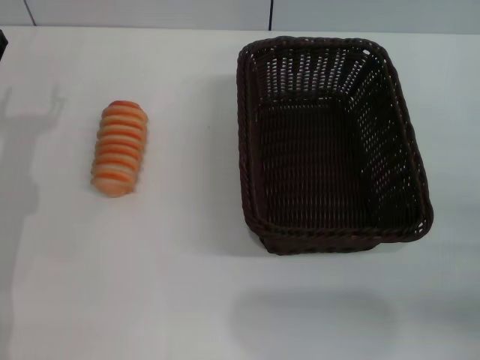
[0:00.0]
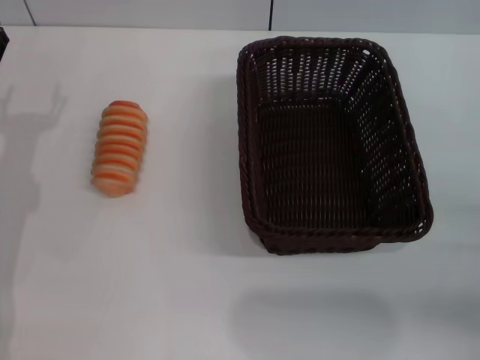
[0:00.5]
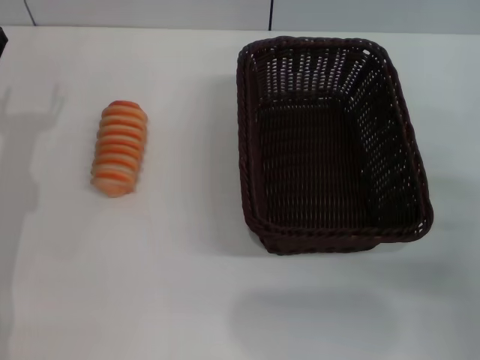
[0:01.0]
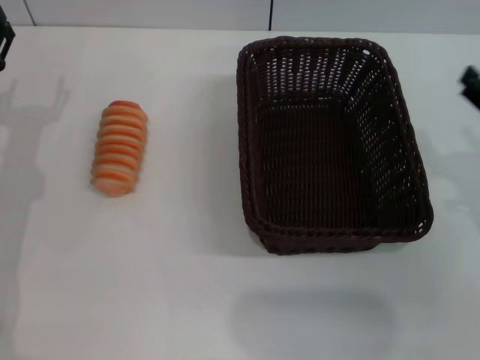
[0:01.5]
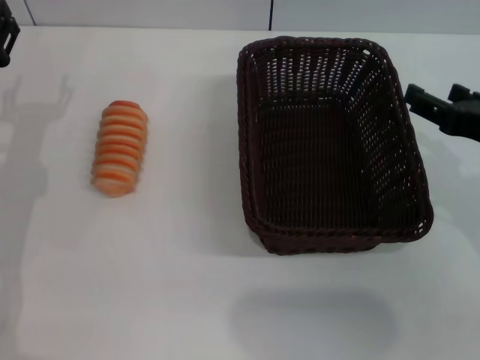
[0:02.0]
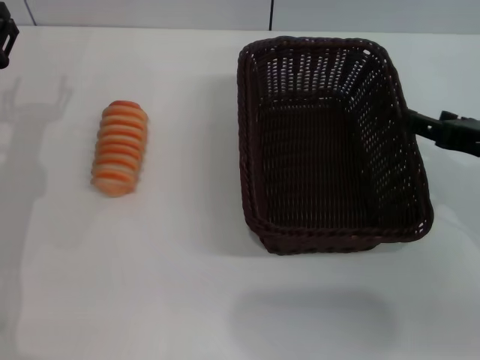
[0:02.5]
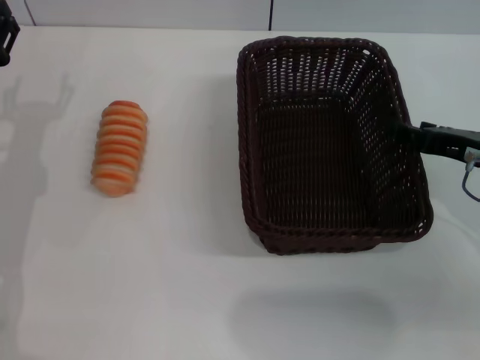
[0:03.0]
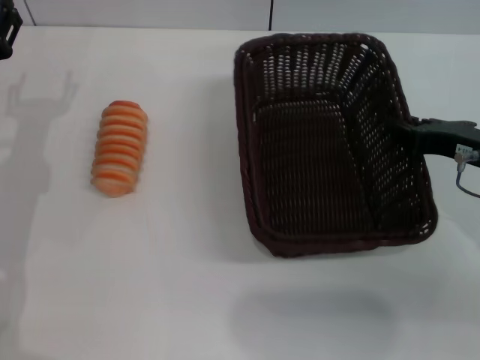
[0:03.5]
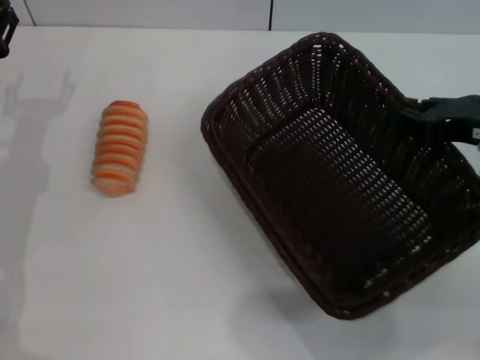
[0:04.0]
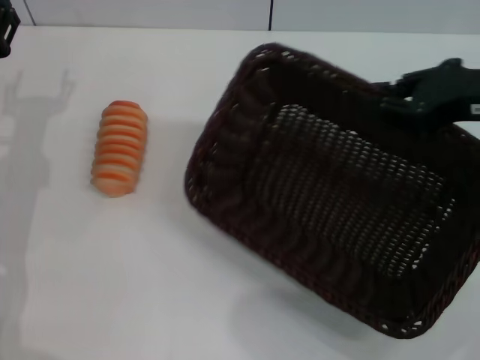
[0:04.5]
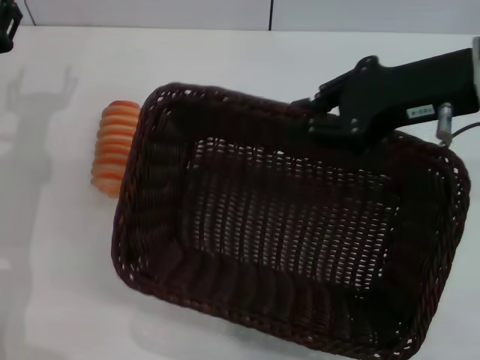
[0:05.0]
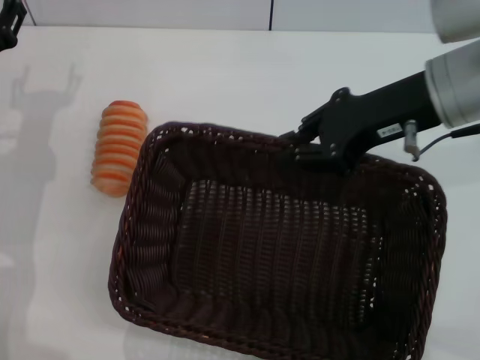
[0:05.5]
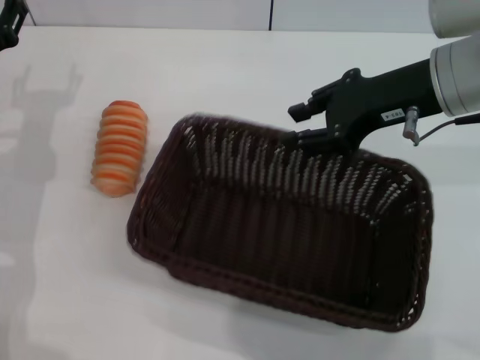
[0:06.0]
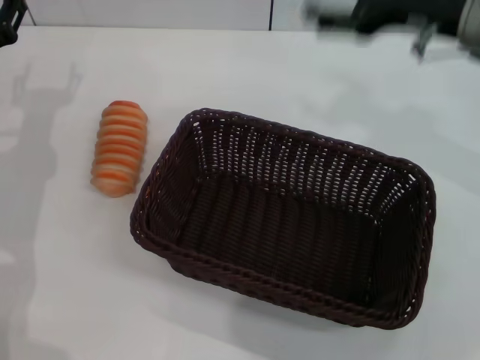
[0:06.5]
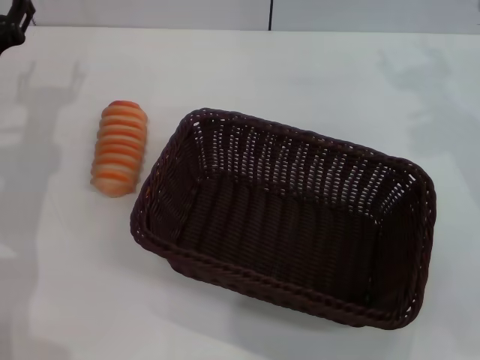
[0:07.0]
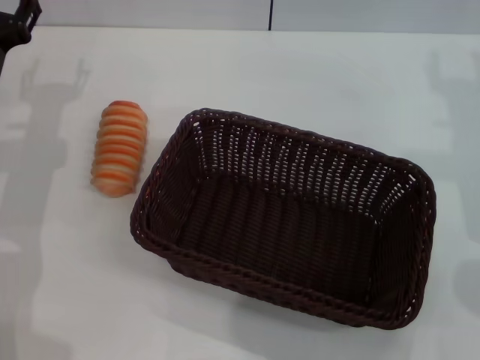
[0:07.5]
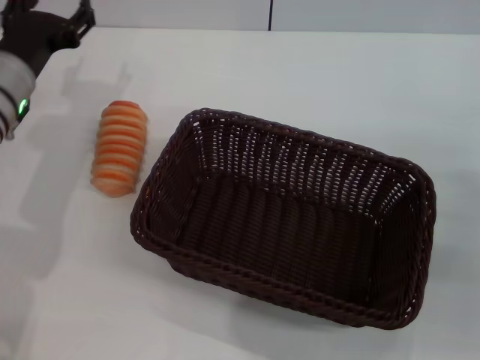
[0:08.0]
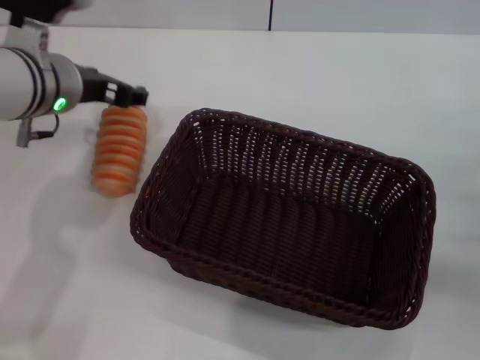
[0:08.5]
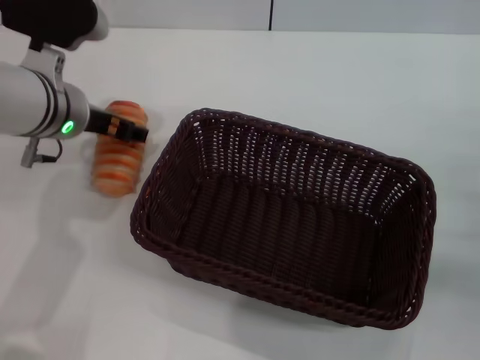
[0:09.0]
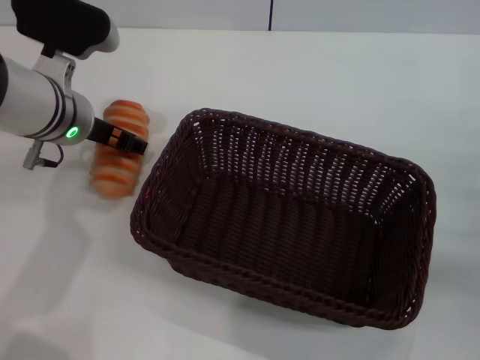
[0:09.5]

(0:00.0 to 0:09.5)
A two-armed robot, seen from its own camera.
Step, 0:00.0 - 0:03.5: Pick up the dark basket with the right gripper.
Step, 0:04.5 - 0:06.0: Place the dark basket in the center of view with the right gripper.
0:00.0 - 0:02.0: The right gripper goes roughly 15 cm upward, to the left and forward.
0:02.0 - 0:04.0: The right gripper closes up.
0:04.0 - 0:05.5: The right gripper heads to the left and forward, covering some 10 cm.
0:05.5 - 0:07.5: The right gripper moves to the right, some 5 cm, and opens.
0:07.5 - 0:09.5: The left gripper moves to the right, roughly 10 cm; the right gripper is displaced backward, downward and to the right by about 15 cm.

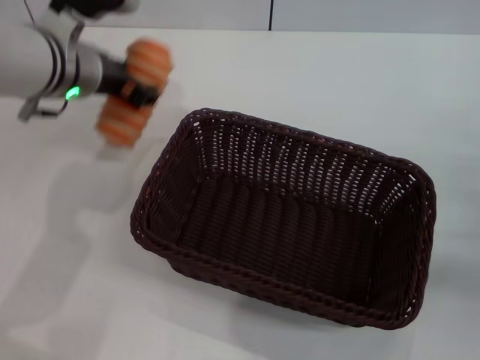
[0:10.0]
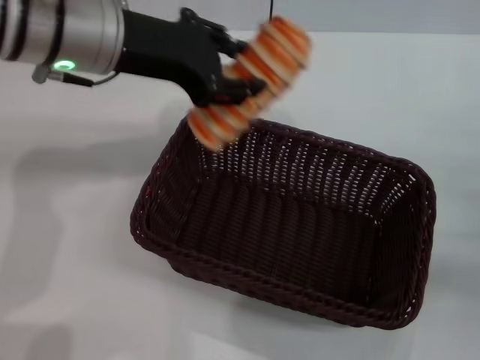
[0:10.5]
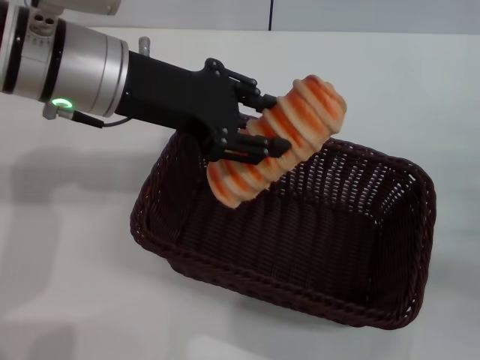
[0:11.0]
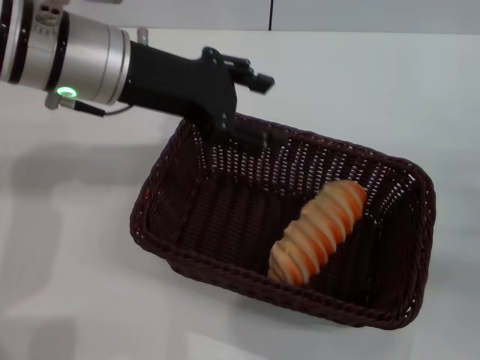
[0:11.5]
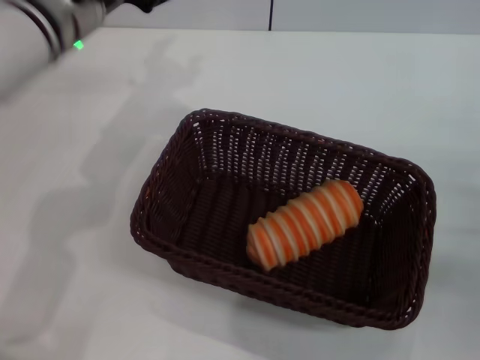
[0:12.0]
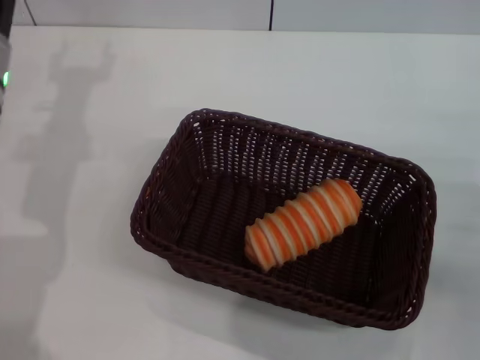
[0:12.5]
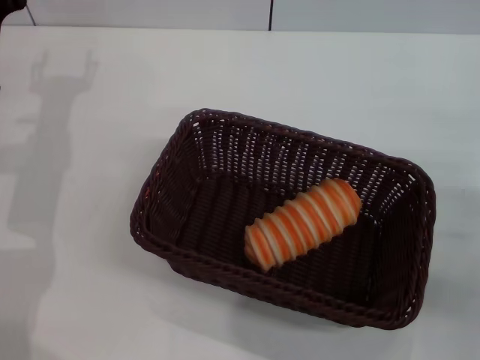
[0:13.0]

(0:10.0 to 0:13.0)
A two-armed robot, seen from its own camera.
Step, 0:10.0 - 0:11.5: Place the long bread into the dark basket with the left gripper.
0:10.0 - 0:11.5: The left gripper moves some 5 cm, and opens up.
0:11.5 - 0:13.0: The left gripper moves downward and to the left, roughly 15 cm.
